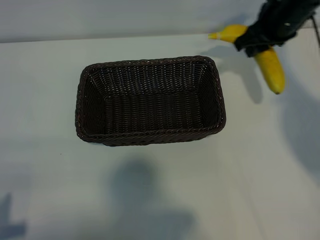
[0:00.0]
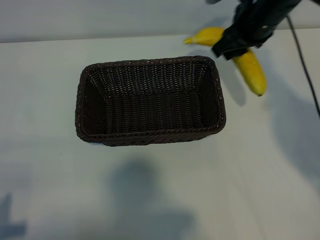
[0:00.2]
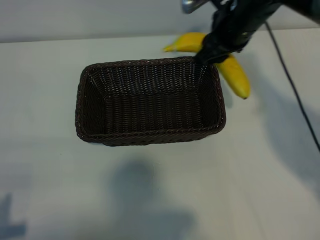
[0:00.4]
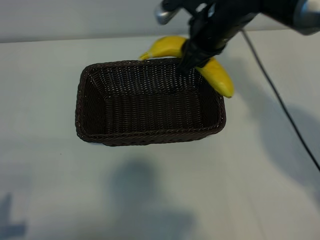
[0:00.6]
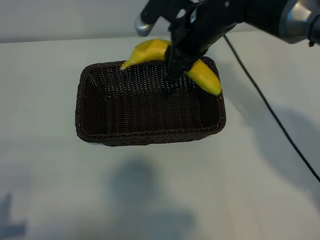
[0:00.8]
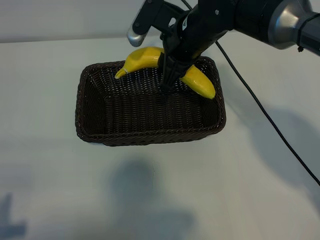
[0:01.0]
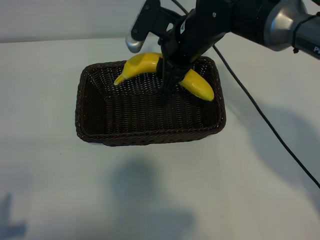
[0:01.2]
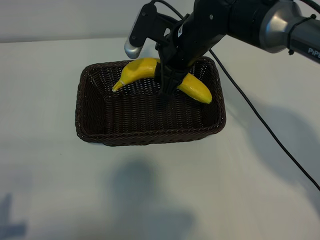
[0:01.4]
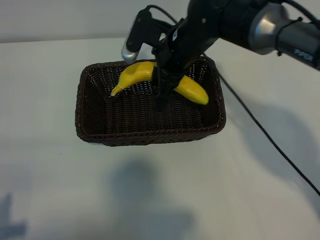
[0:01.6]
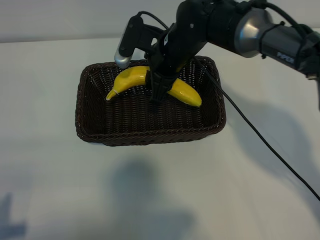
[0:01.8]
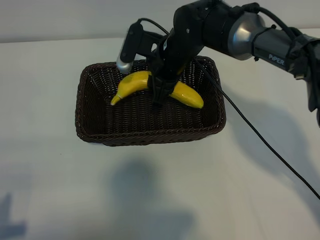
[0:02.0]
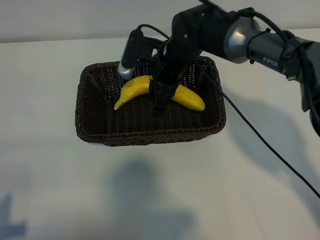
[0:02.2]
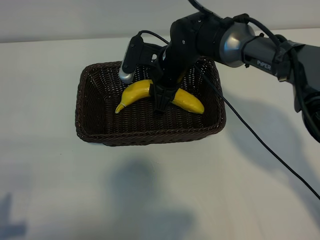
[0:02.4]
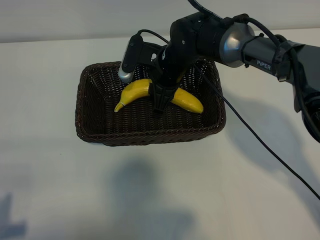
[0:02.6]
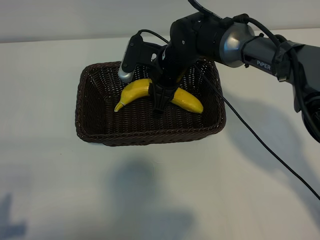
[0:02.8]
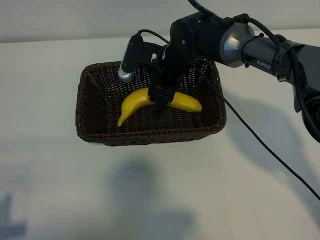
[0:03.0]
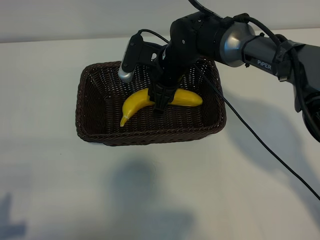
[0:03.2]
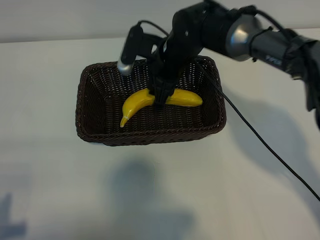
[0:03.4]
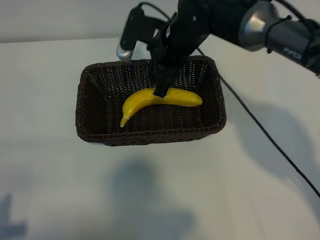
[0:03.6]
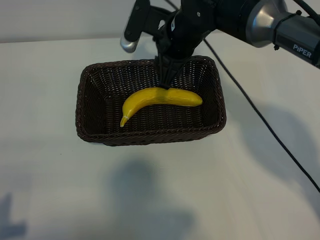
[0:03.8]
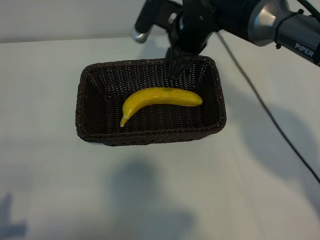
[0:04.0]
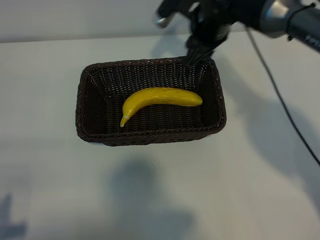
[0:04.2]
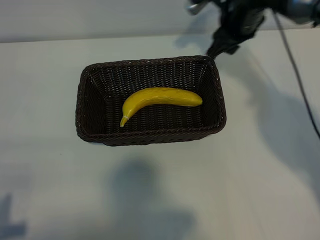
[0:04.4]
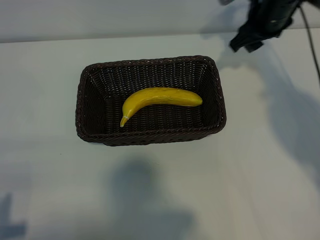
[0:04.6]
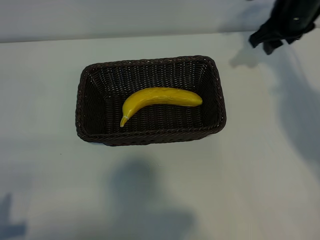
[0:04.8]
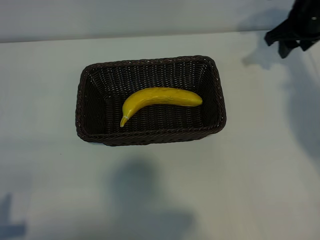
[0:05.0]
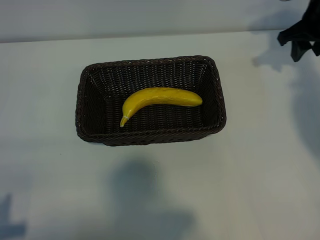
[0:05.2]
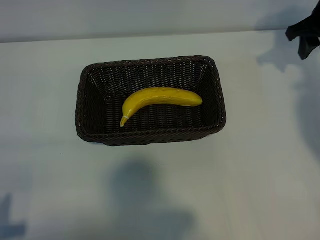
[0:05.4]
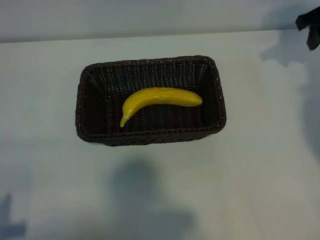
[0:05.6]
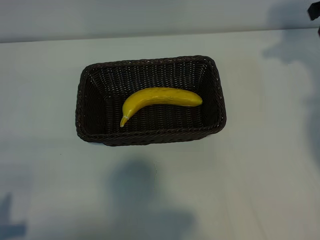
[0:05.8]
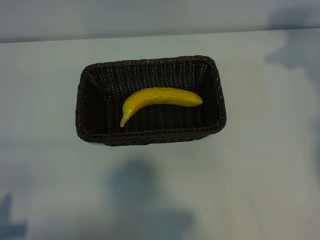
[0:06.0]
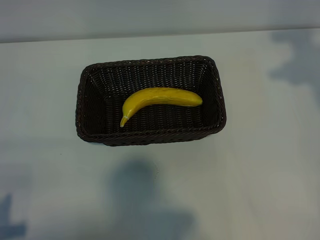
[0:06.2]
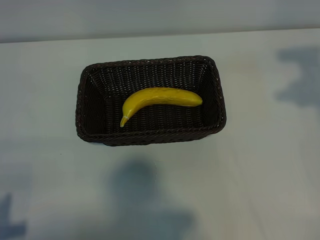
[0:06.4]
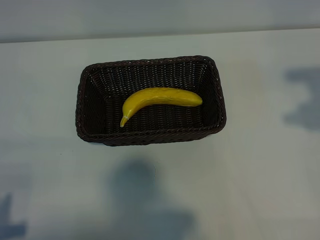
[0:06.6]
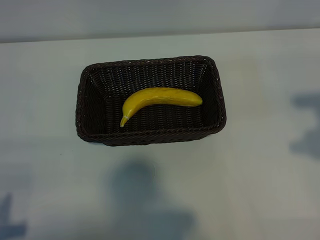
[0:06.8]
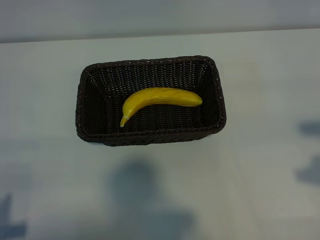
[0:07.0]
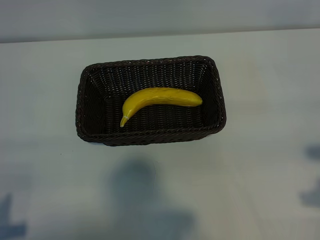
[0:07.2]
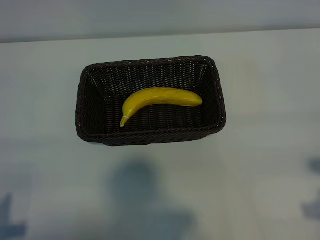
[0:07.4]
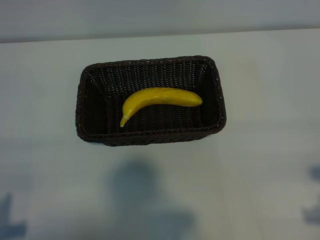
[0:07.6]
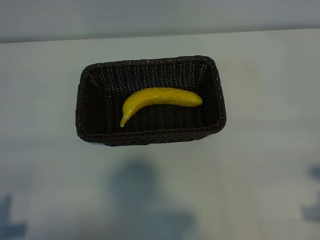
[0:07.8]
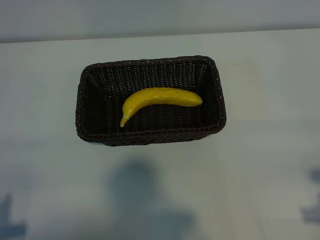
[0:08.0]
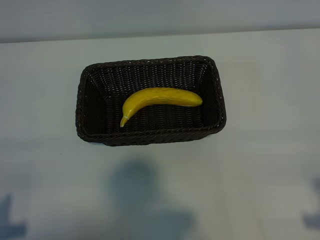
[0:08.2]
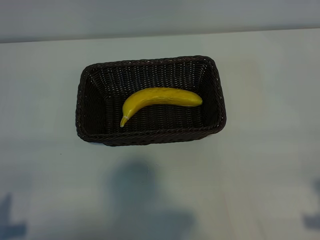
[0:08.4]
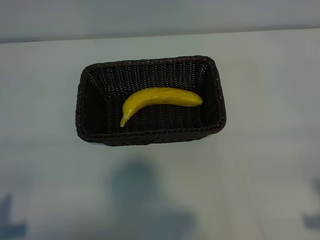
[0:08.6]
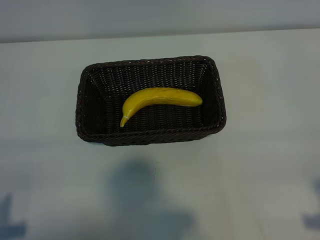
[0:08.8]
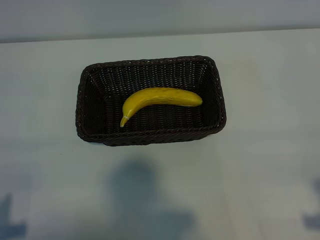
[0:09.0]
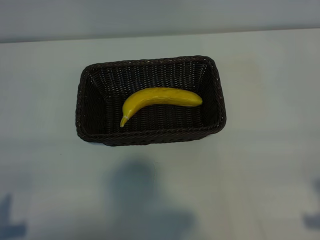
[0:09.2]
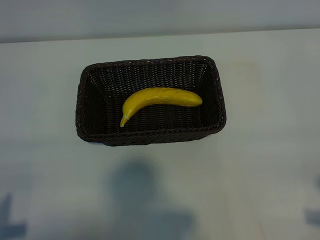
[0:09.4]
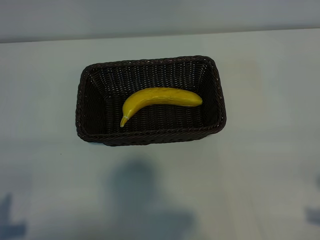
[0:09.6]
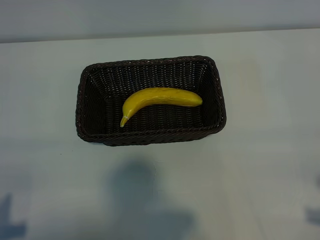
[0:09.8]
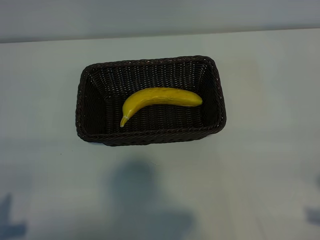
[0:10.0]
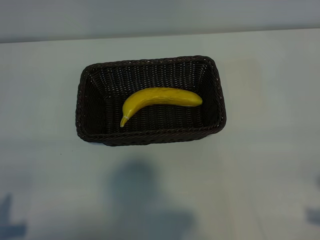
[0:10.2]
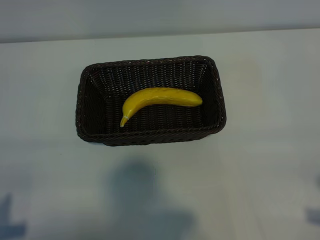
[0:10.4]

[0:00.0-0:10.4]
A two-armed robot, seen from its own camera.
Task of the whole recording: pick up the banana and put it into the basket.
Step, 0:00.0 to 0:03.6: Place the banana in the basket with right gripper.
